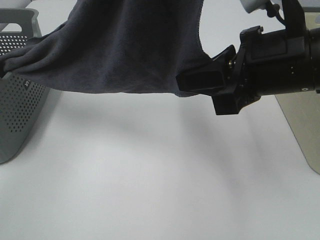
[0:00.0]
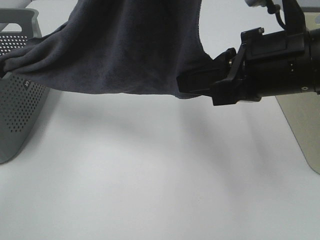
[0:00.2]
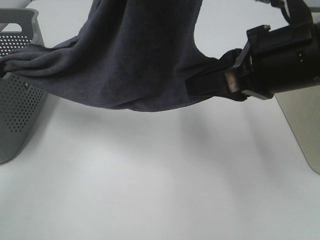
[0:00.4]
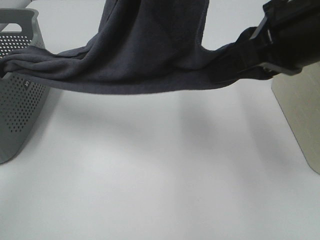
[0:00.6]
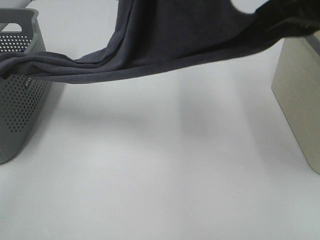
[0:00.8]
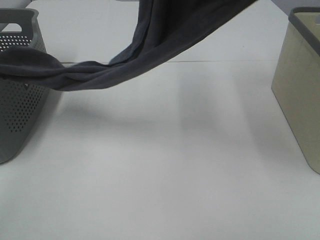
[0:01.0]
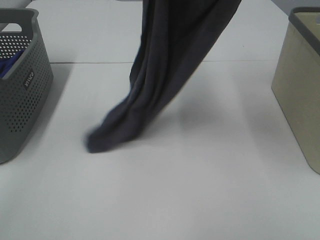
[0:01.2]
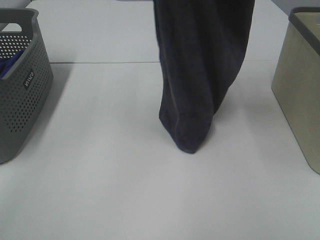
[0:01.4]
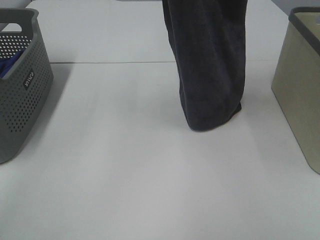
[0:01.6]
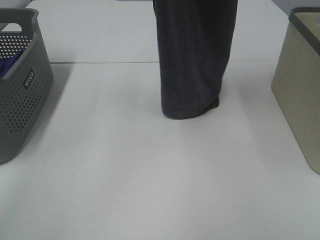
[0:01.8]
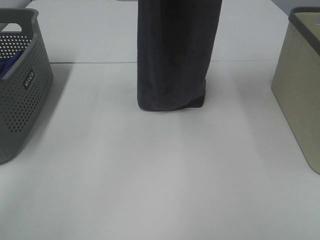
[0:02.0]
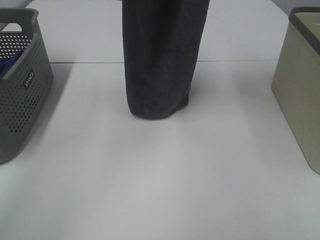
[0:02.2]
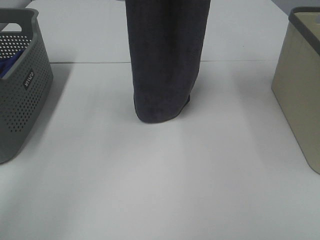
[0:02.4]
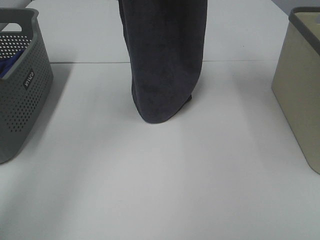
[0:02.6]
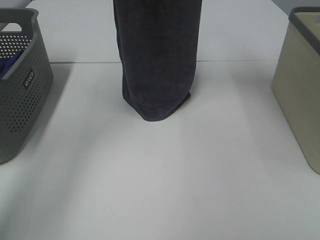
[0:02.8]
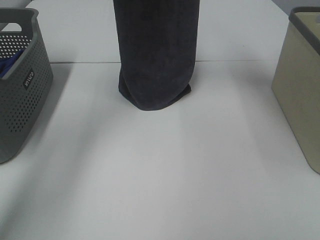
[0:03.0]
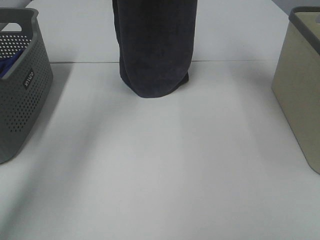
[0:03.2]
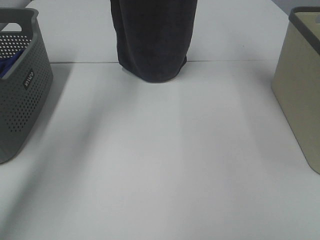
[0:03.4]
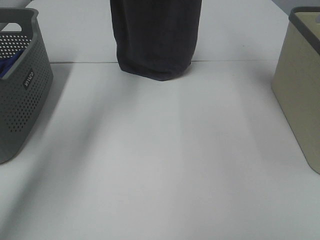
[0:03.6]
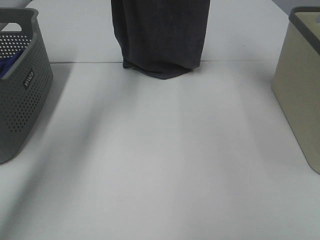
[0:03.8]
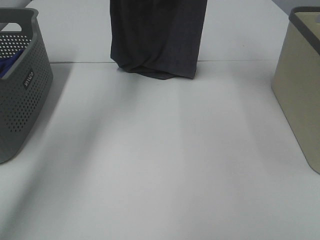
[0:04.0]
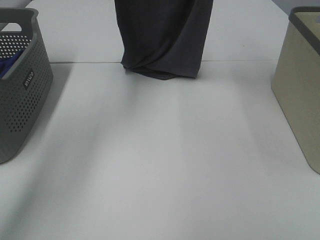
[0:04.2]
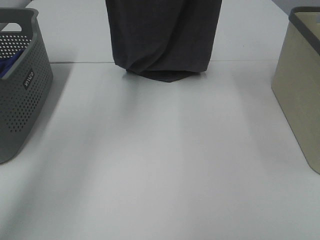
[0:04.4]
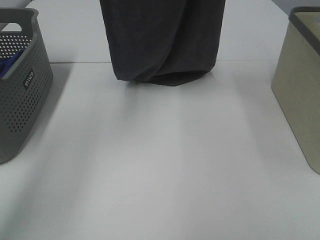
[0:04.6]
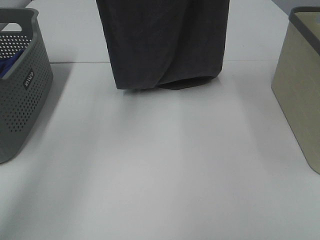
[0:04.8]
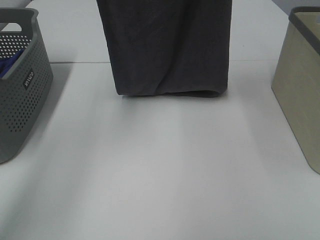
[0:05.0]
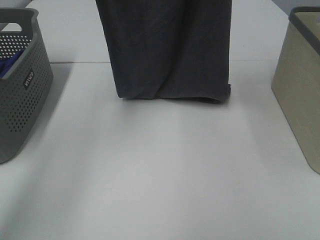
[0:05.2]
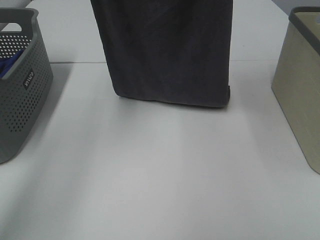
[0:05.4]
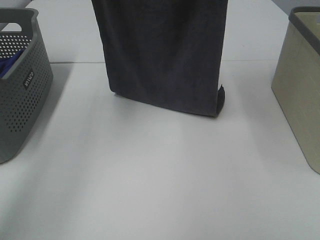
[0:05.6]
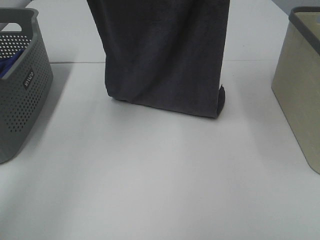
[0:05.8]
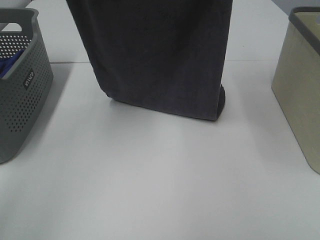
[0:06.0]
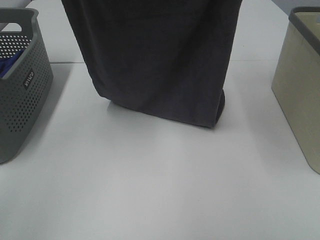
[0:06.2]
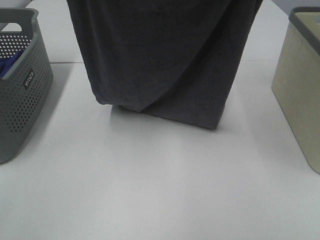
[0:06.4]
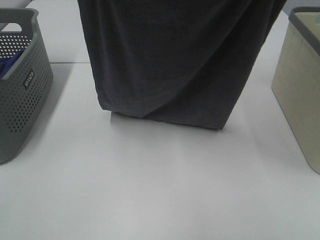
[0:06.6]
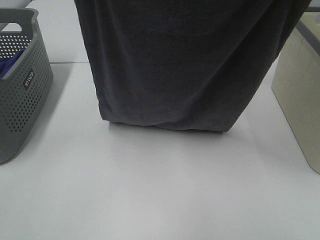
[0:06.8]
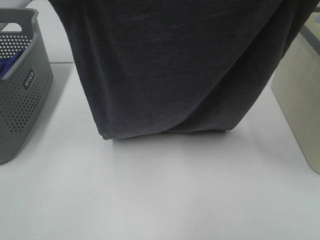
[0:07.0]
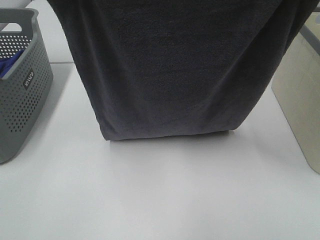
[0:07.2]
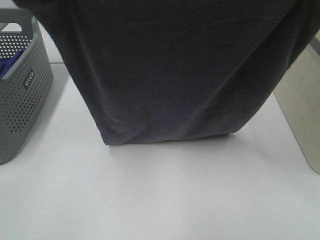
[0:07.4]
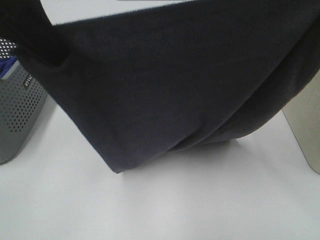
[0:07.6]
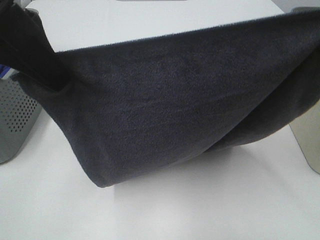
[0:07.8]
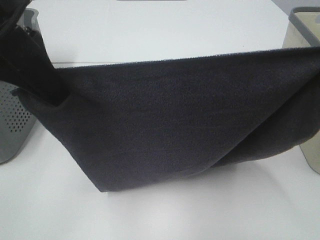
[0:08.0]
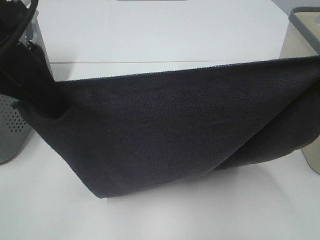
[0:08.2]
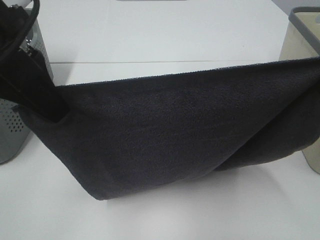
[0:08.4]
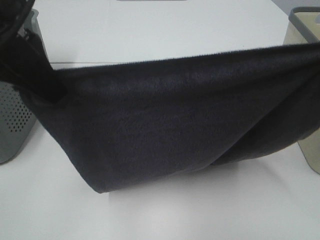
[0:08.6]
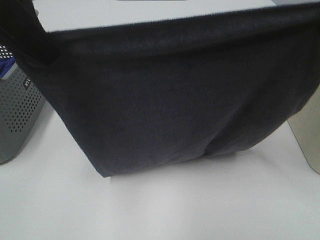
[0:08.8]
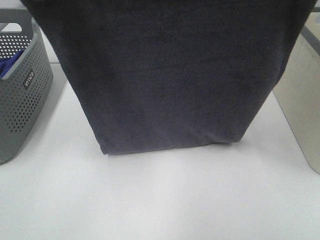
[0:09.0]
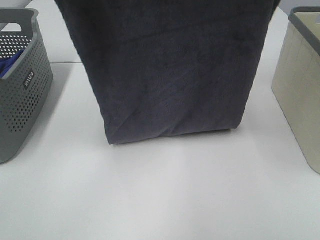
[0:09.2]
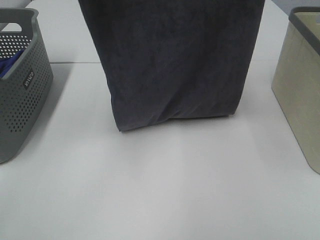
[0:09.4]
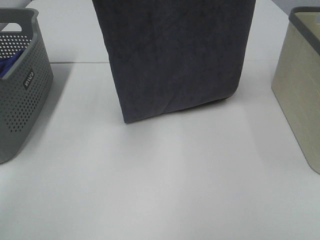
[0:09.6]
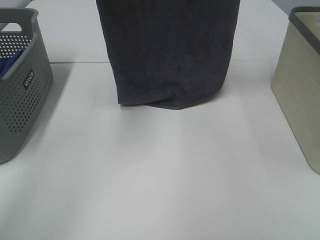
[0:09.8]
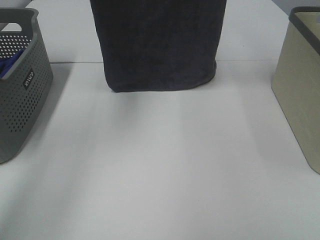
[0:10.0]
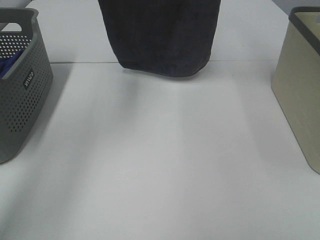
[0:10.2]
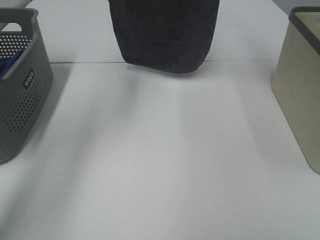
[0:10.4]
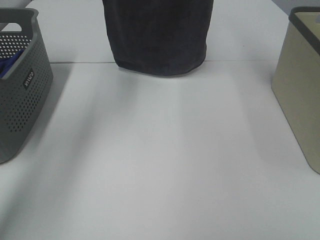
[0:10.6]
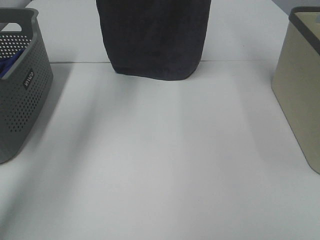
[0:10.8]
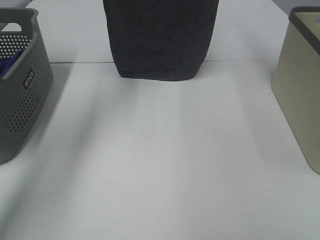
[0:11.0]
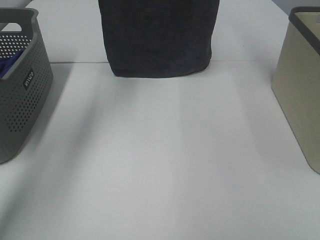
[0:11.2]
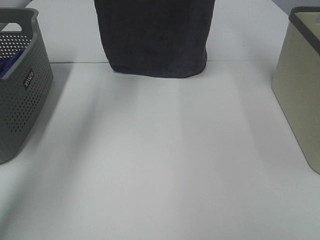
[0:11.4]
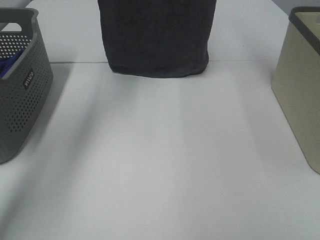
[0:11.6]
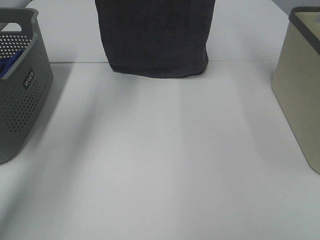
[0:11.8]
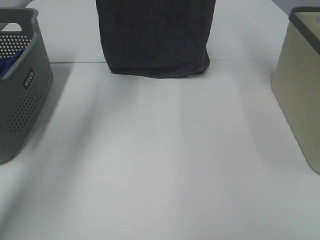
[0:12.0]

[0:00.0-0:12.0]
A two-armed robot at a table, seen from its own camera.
Task of the whole recording: Remove the towel and place it.
Step, 0:01.2 to 0:11.8: Left hand: spread the grey towel flat on the table.
Step, 0:01.2 to 0:11.8: Right hand: spread the grey towel flat on the table.
0:00.0 to 0:01.6: The right gripper travels upward and forward by approximately 25 cm, while the left gripper moves forward, roughly 10 cm.
0:01.6 to 0:03.0: The right gripper heads forward, covering some 15 cm; the left gripper moves forward and downward, some 15 cm.
0:03.0 to 0:04.4: The right gripper shifts about 5 cm backward.
0:04.4 to 0:06.0: The right gripper goes roughly 5 cm backward; the left gripper travels backward by roughly 10 cm.
0:06.0 to 0:07.6: The right gripper heads backward, covering about 15 cm. The left gripper heads backward and downward, covering some 15 cm.
0:07.6 to 0:09.0: The left gripper changes place by some 5 cm. The right gripper travels forward by some 5 cm.
0:09.0 to 0:10.4: The left gripper shifts roughly 20 cm forward. Meanwhile the right gripper goes about 20 cm forward and upward.
0:10.4 to 0:12.0: The grippers stay close to where they were, moving slightly.

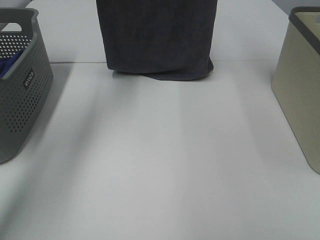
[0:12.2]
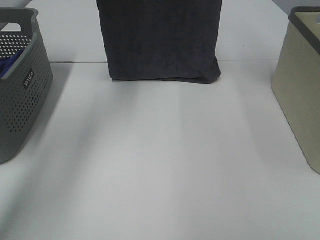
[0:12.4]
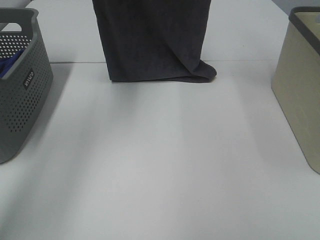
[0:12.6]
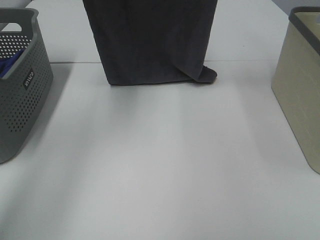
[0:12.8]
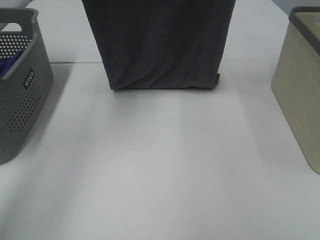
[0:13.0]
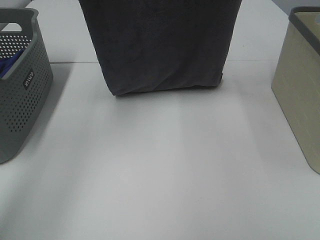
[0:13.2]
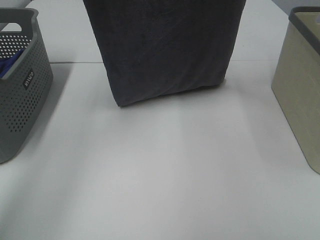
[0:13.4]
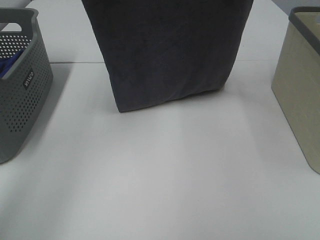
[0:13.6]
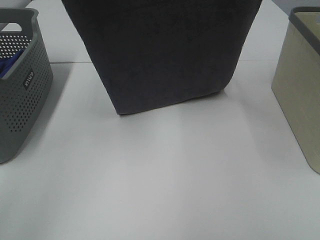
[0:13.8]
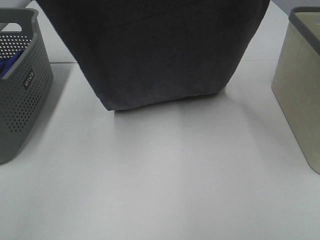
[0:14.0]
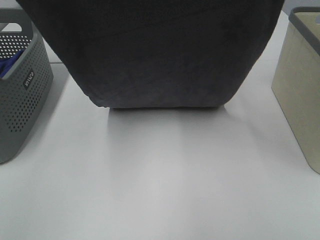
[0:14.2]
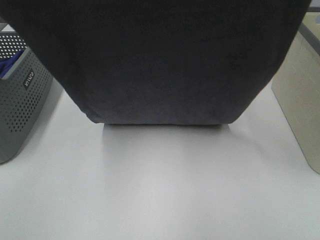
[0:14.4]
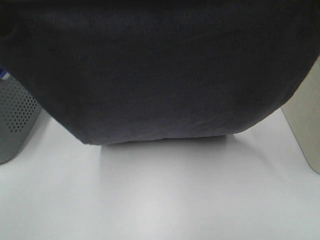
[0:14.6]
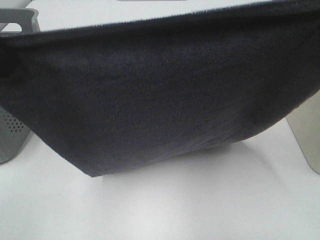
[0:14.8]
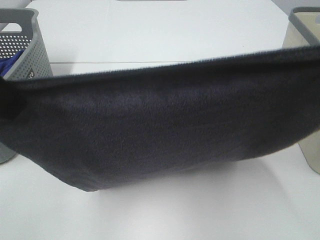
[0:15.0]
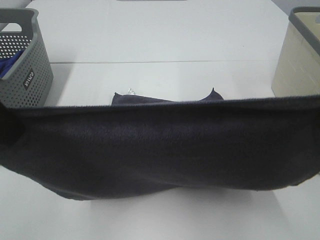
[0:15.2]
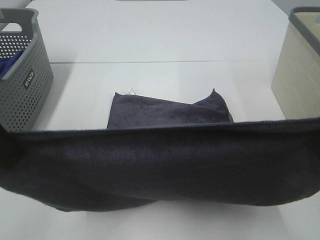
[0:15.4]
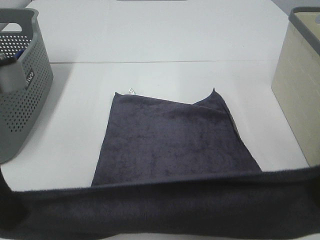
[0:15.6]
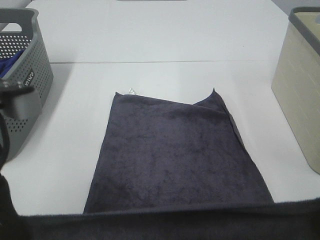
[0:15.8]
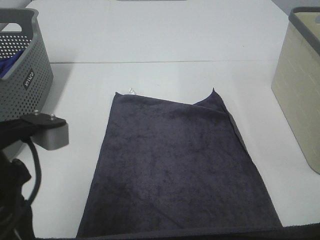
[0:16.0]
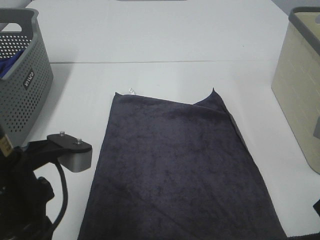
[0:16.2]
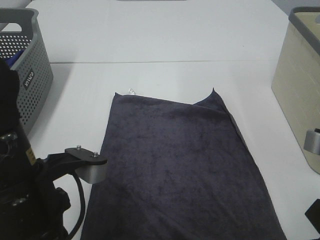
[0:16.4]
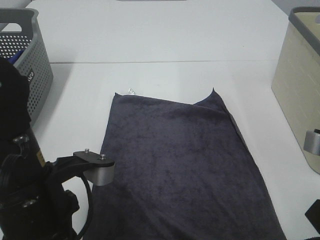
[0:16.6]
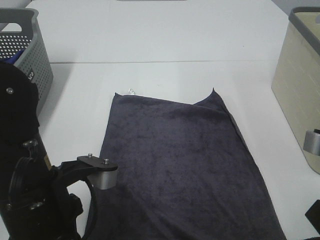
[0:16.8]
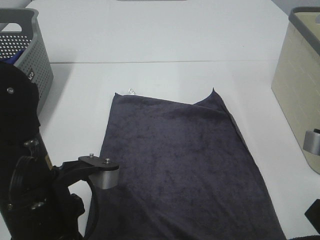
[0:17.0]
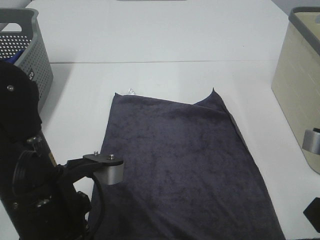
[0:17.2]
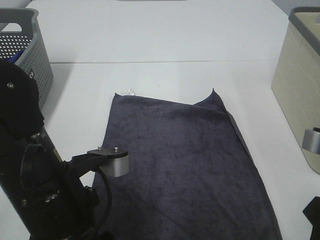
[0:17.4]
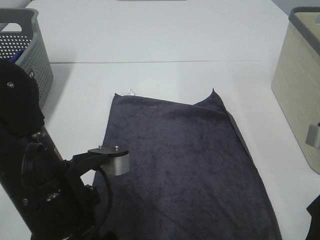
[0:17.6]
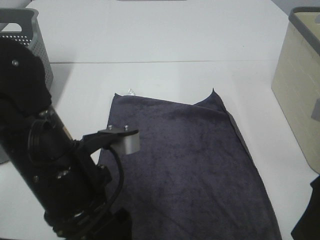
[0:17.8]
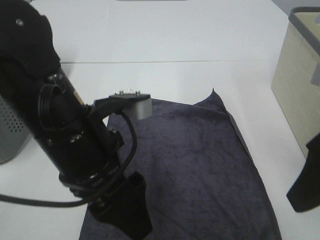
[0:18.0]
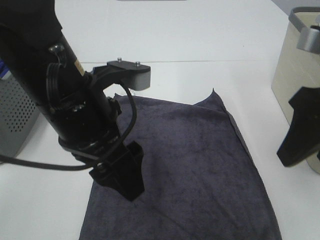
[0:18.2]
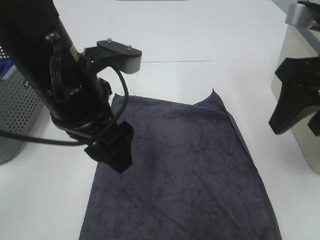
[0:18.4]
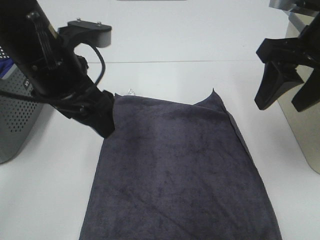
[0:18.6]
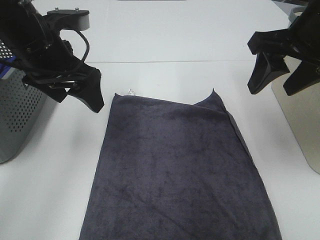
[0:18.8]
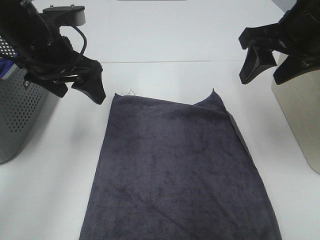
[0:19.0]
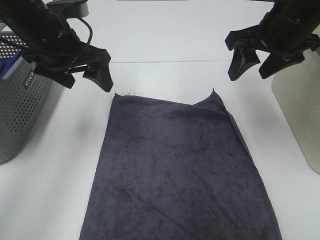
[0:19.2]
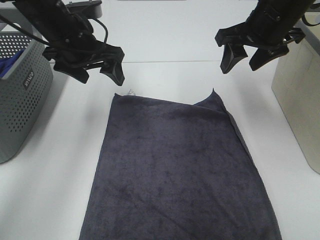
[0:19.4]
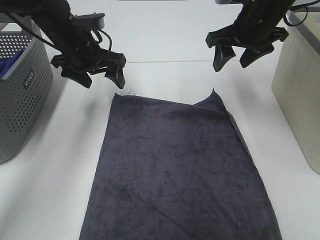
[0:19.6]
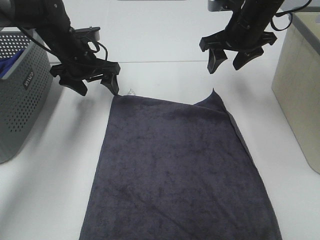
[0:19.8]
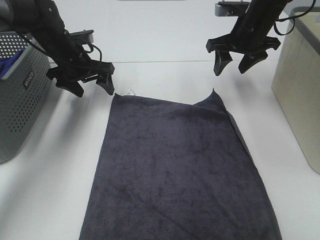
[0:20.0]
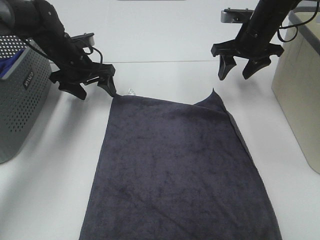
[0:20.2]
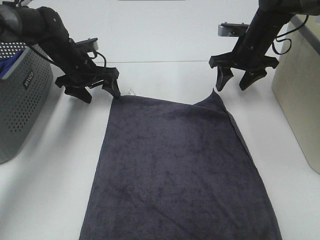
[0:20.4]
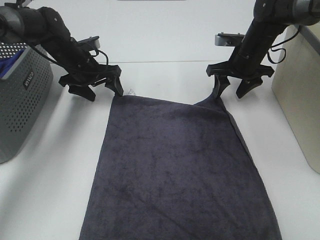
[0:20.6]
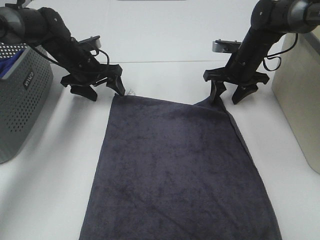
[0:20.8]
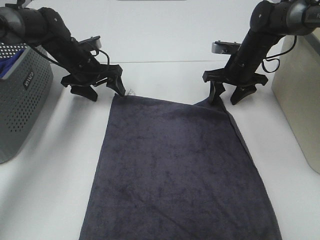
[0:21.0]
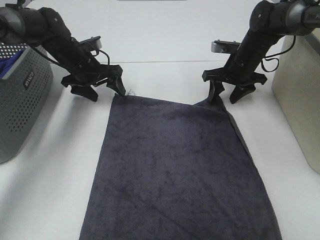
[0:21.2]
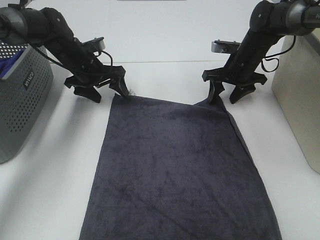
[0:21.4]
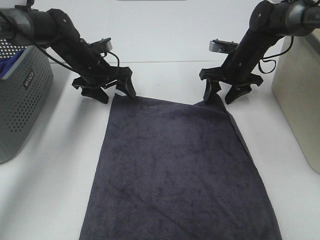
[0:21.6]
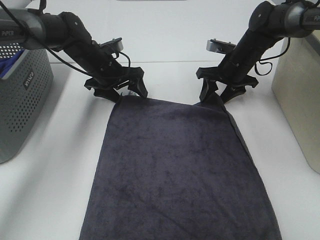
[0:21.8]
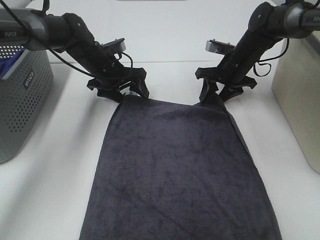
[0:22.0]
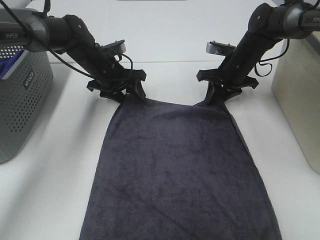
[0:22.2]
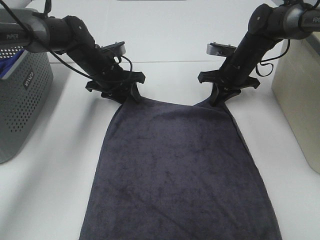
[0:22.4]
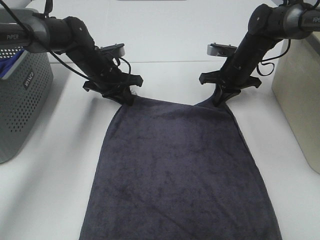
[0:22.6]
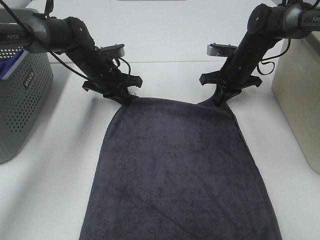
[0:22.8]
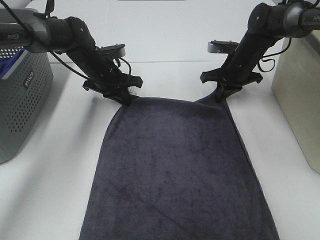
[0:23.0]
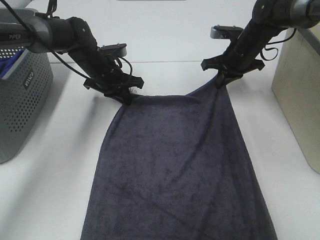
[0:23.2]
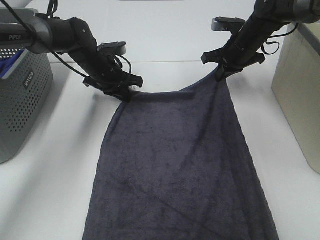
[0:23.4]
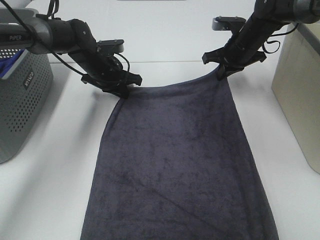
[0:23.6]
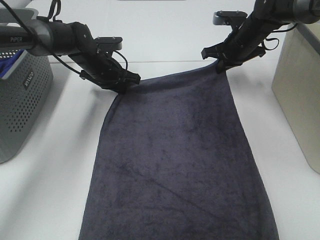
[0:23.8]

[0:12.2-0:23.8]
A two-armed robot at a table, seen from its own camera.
Task of the whole recording: Remove the towel and place it.
Step, 0:12.2 to 0:20.0: Left hand:adjust the gray towel.
Step, 0:12.2 to 0:20.0: Right hand:adjust the gray towel.
0:12.2 to 0:13.6: Both grippers travel together backward, some 10 cm.
0:13.6 to 0:15.0: Both grippers move backward and downward, some 25 cm.
0:15.0 to 0:16.6: The two grippers go about 15 cm downward.
0:16.6 to 0:18.0: The left gripper ends up approximately 5 cm from where it was, and opens up. The right gripper is displaced upward by roughly 5 cm, and opens.
0:18.0 to 0:19.4: The two grippers go roughly 25 cm forward.
0:19.4 to 0:21.0: Both grippers travel together downward and forward, some 15 cm.
0:21.0 to 0:22.4: The right gripper closes, while the left gripper heads to the right, covering approximately 5 cm, and closes up.
0:22.4 to 0:23.8: The right gripper ends up some 5 cm from where it was. The left gripper closes its fingers.
